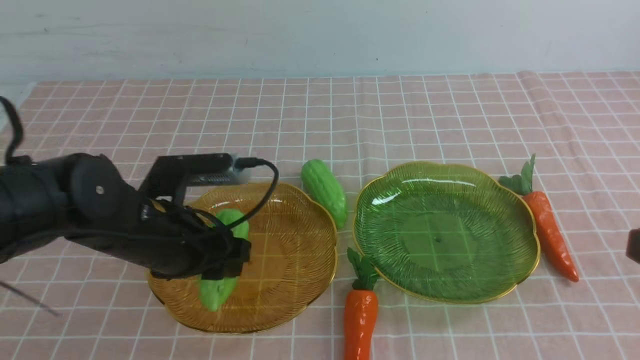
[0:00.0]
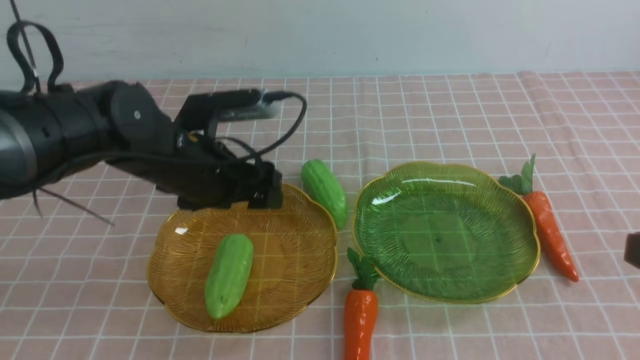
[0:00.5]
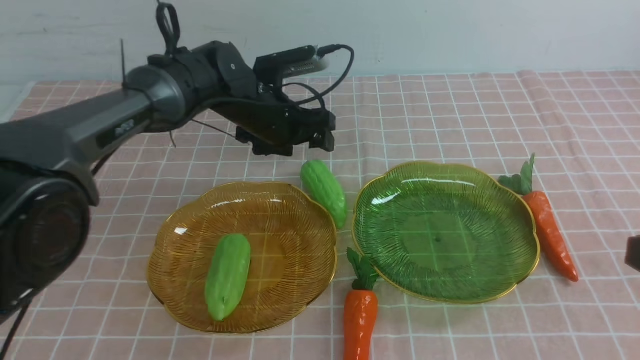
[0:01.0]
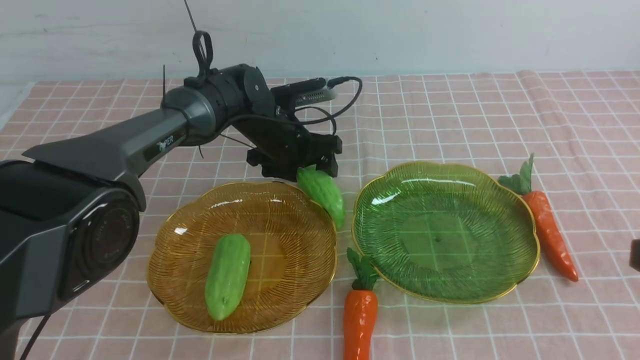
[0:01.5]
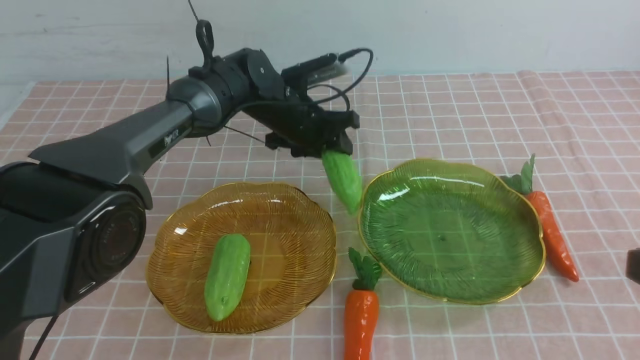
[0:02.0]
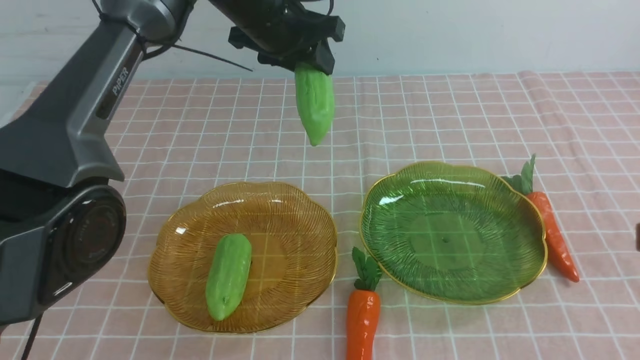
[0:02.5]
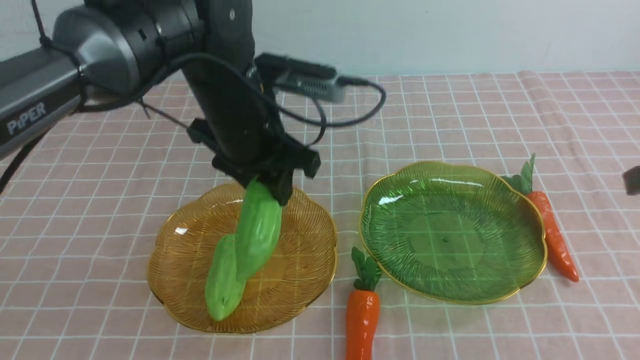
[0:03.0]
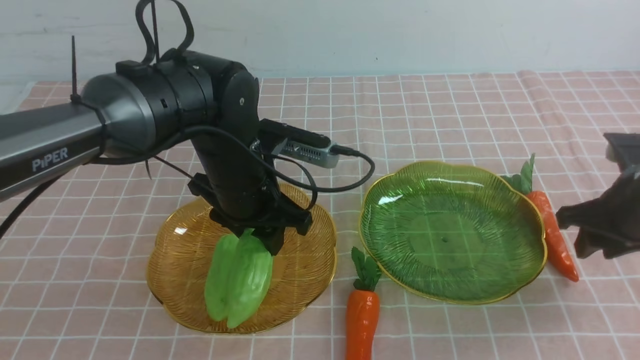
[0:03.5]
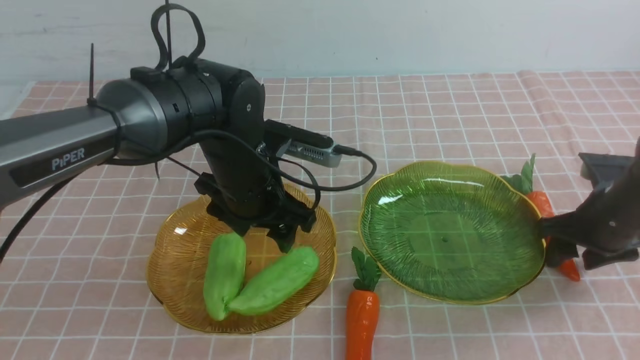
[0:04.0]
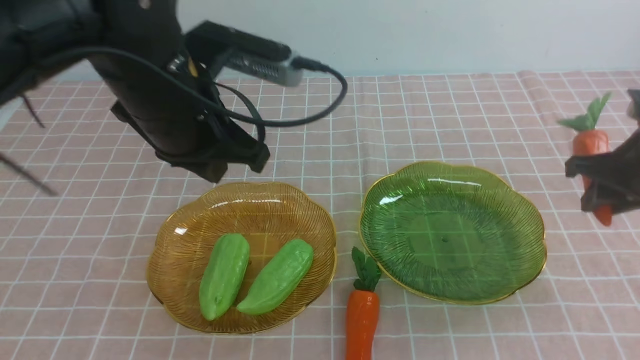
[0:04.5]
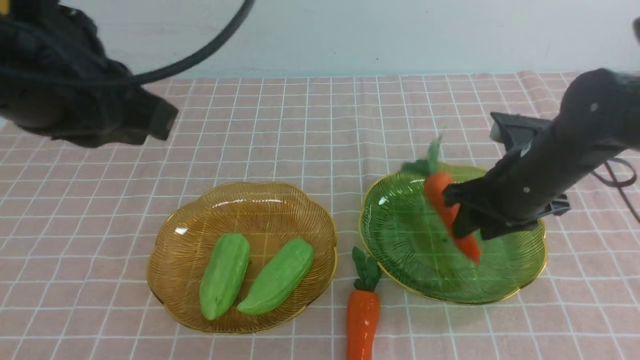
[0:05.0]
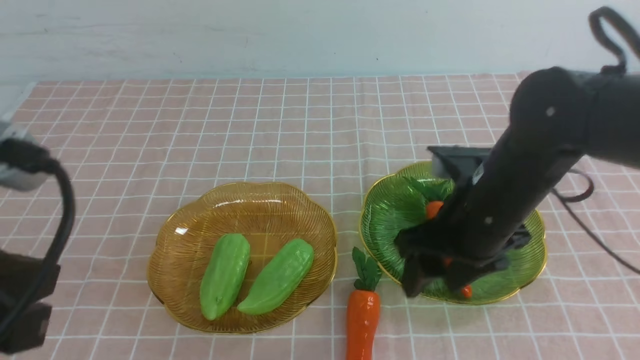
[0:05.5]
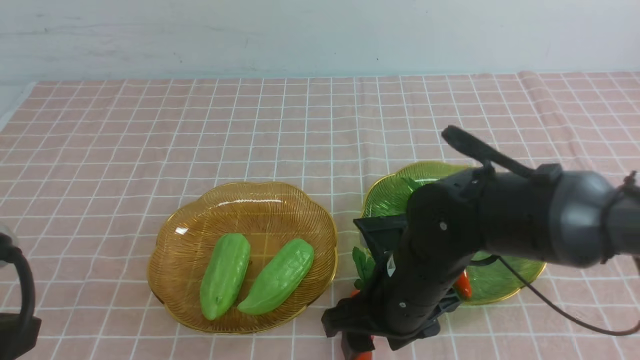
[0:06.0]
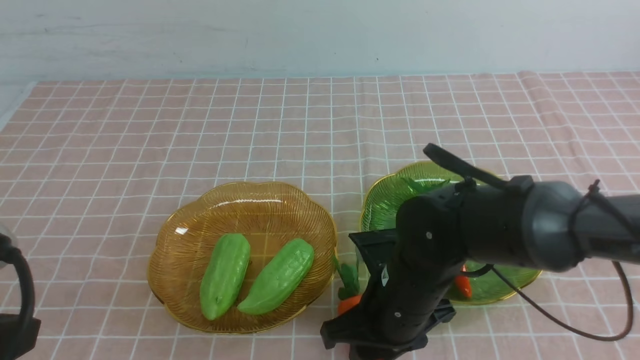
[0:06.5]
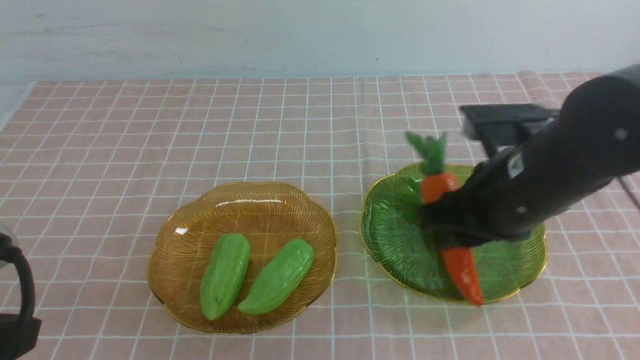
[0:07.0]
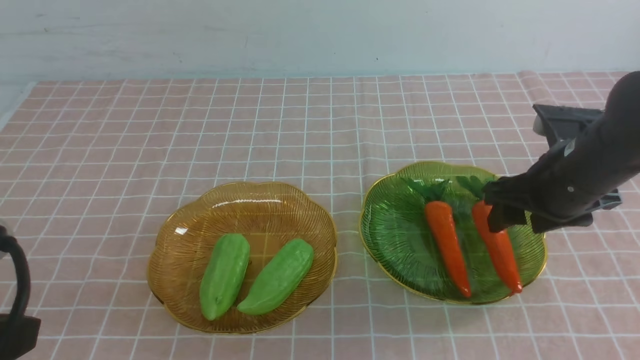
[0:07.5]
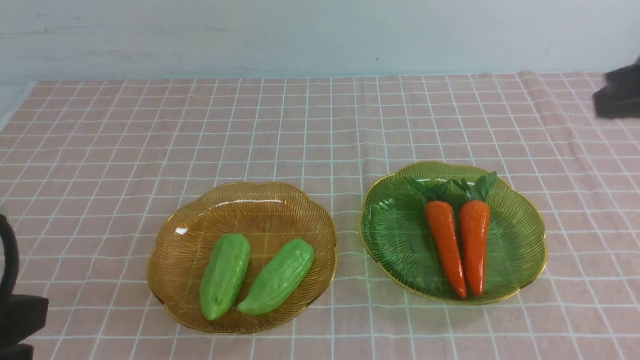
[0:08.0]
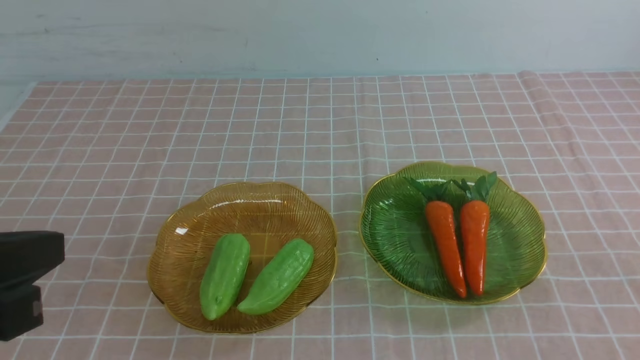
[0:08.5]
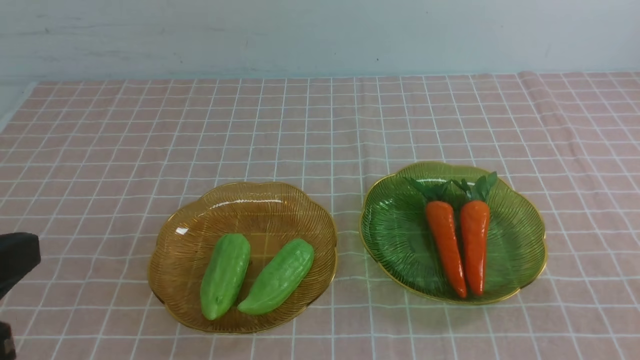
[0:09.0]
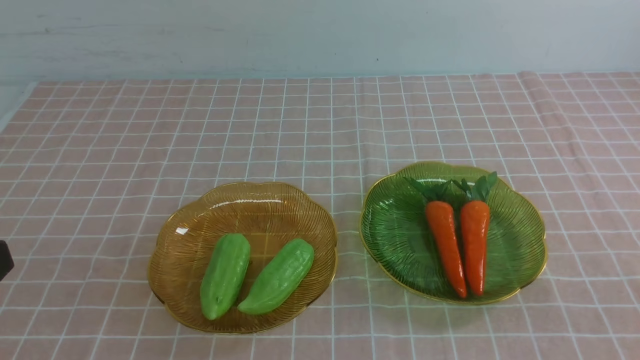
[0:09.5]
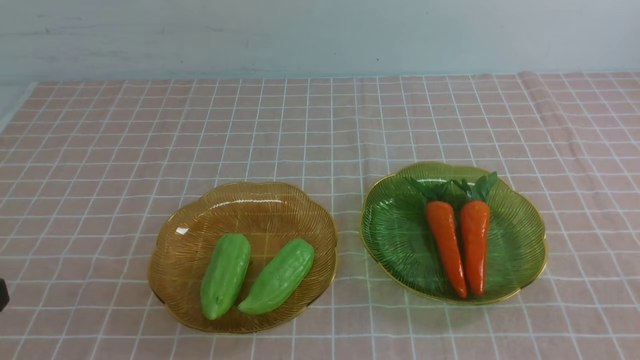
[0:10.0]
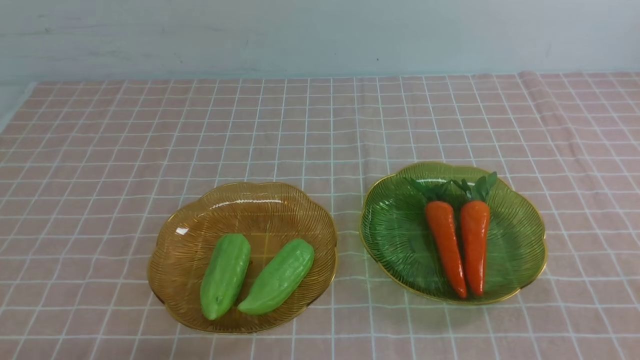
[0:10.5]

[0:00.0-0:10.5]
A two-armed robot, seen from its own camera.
Step, 0:00.0 to 0:03.5: use the left arm to grab a chayote and put it into the left plate.
Step, 0:04.0 to 0:07.0: use the right arm to grab a carrot and put it into the right plate.
0:00.0 to 0:02.0: The left gripper moves forward and to the right, about 25 cm, and opens, then closes once more.
0:02.0 to 0:04.0: The left gripper heads backward and upward, covering roughly 20 cm. The right gripper heads forward and downward, covering about 25 cm, and opens up.
0:04.0 to 0:06.5: The left gripper is displaced backward and to the left by roughly 30 cm. Meanwhile the right gripper goes some 25 cm to the left and backward, and opens, then closes again.
0:06.5 to 0:08.5: The right gripper moves to the right, backward and upward, about 35 cm, and closes up.
0:08.5 to 0:10.5: The left gripper shifts roughly 20 cm downward.

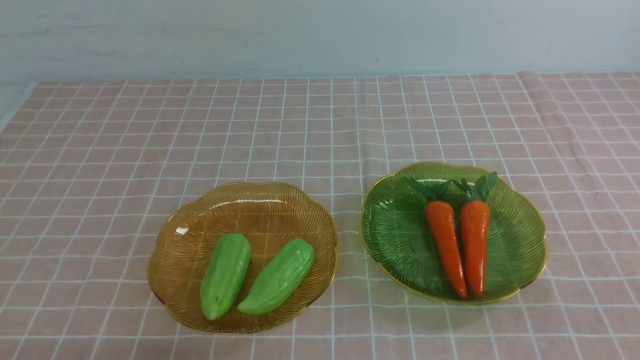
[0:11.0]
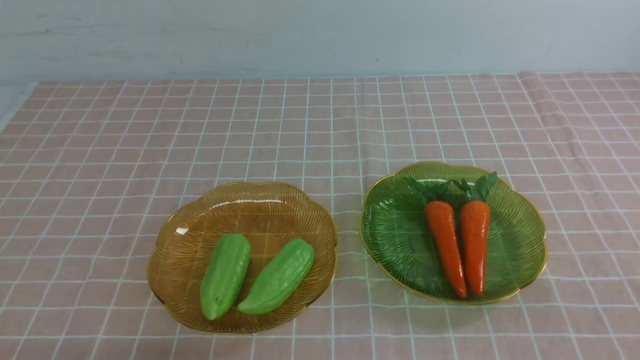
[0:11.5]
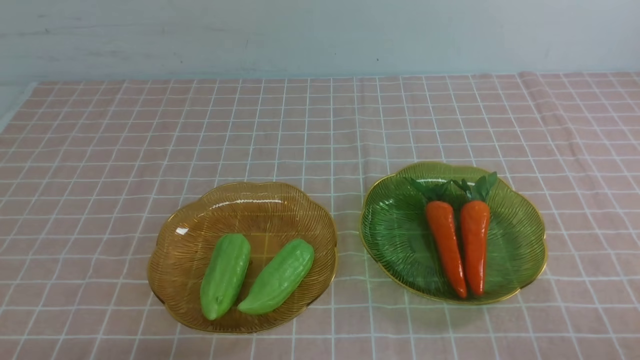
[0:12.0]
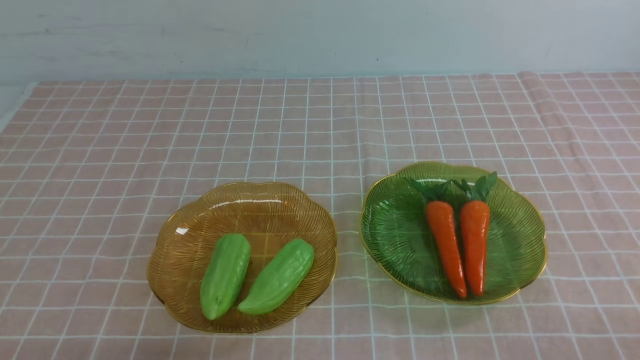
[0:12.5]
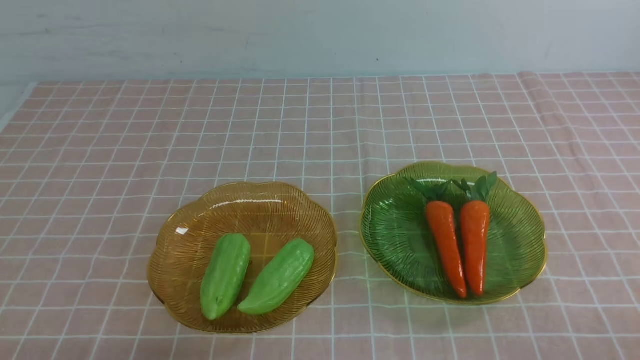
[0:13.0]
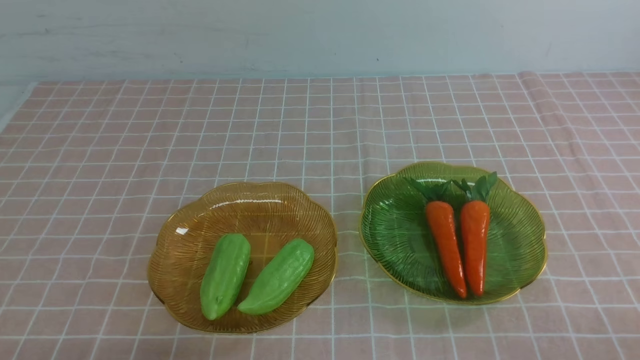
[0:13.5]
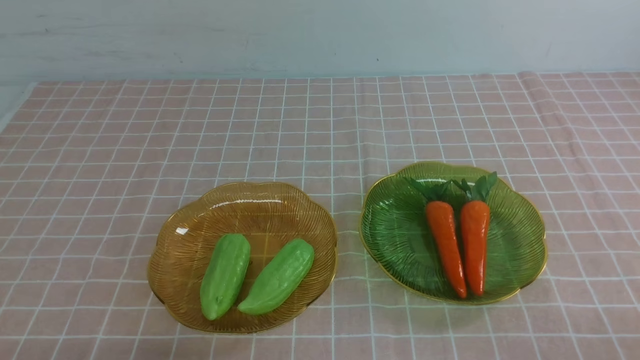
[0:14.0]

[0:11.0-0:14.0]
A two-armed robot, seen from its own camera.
0:12.5 to 0:14.0: Neither gripper changes place.
